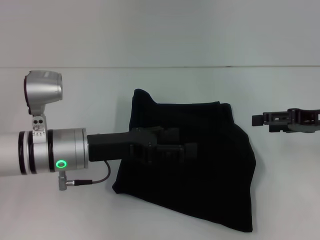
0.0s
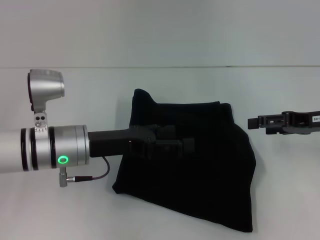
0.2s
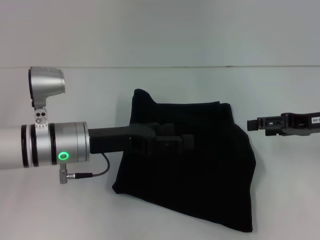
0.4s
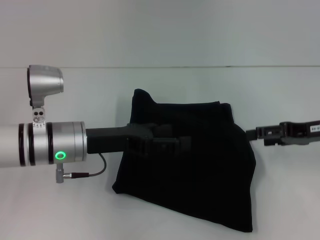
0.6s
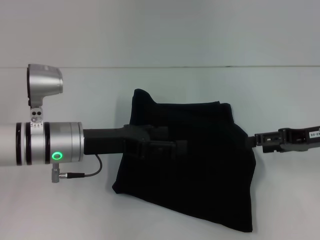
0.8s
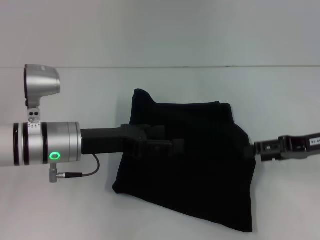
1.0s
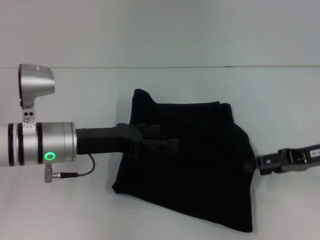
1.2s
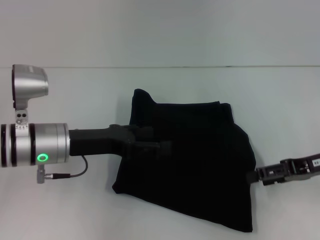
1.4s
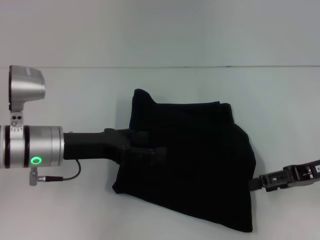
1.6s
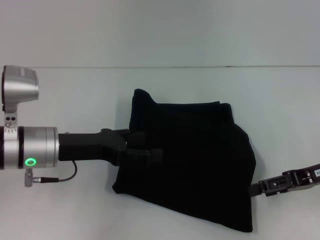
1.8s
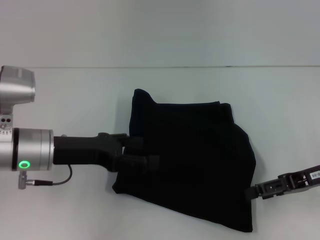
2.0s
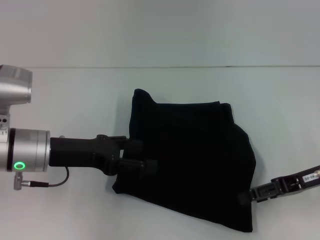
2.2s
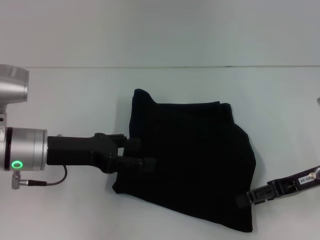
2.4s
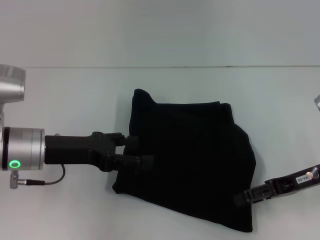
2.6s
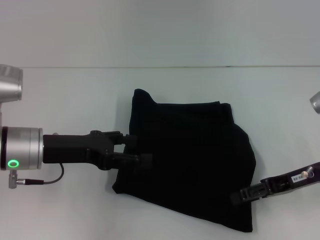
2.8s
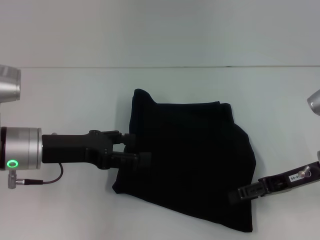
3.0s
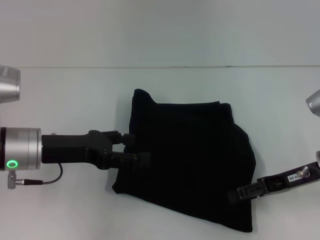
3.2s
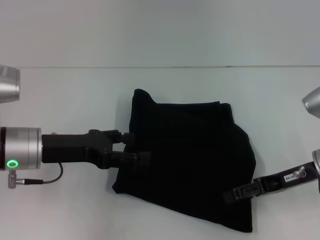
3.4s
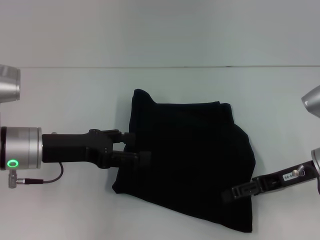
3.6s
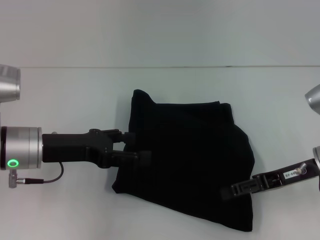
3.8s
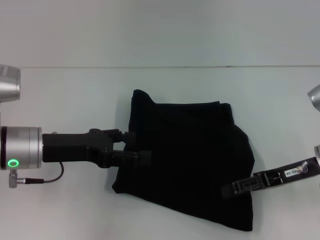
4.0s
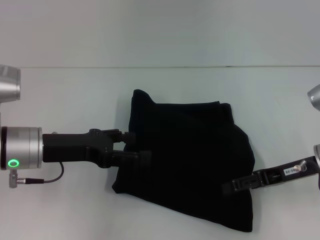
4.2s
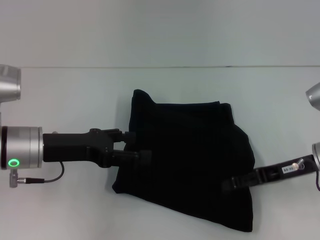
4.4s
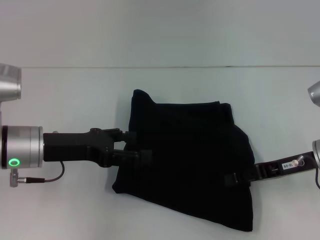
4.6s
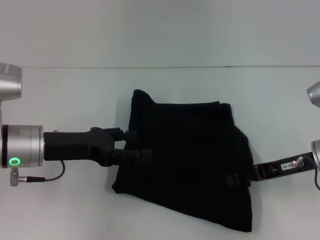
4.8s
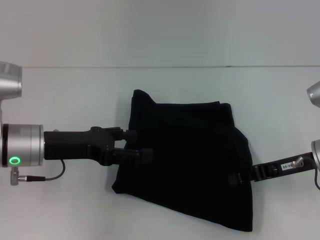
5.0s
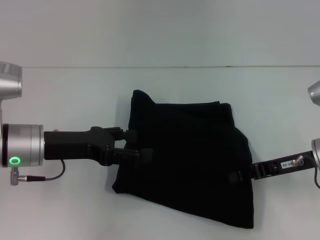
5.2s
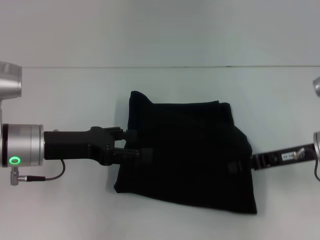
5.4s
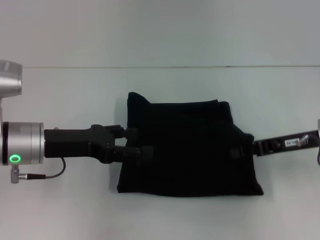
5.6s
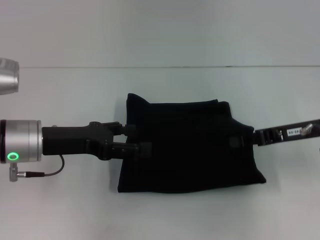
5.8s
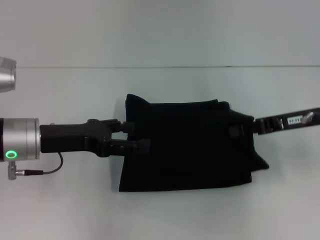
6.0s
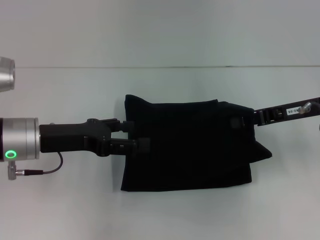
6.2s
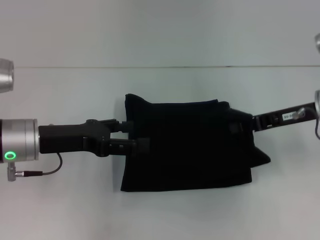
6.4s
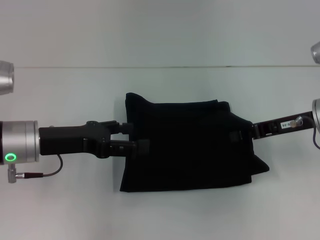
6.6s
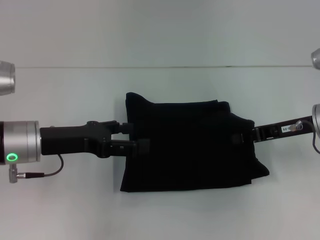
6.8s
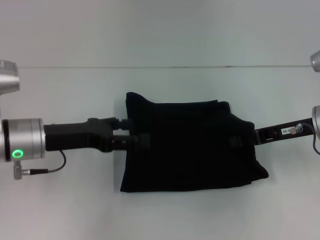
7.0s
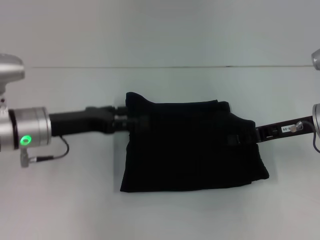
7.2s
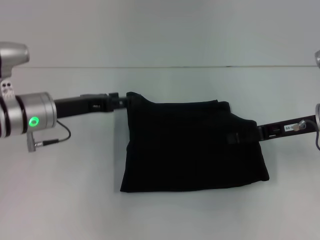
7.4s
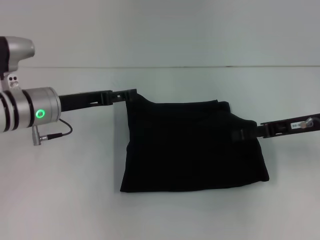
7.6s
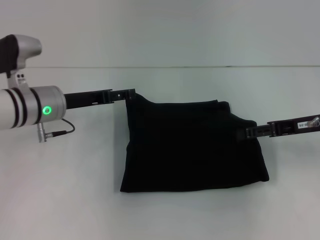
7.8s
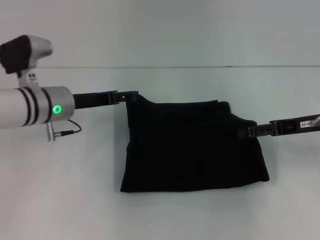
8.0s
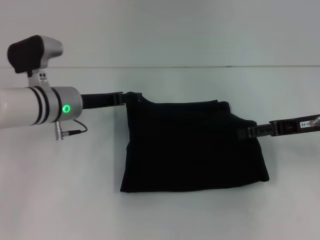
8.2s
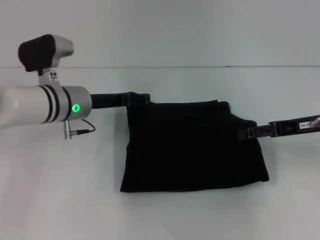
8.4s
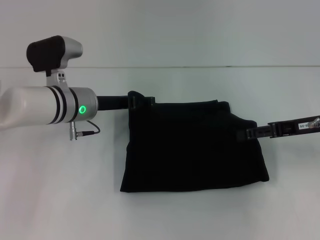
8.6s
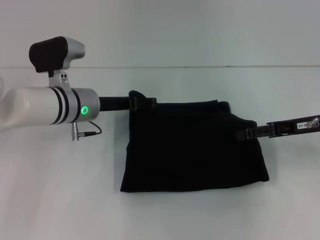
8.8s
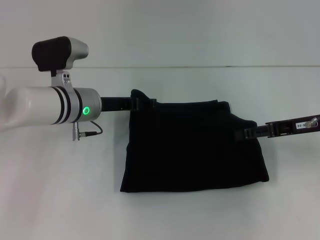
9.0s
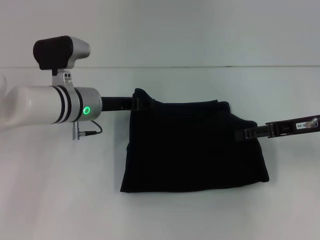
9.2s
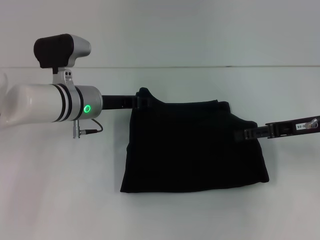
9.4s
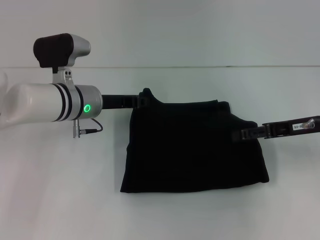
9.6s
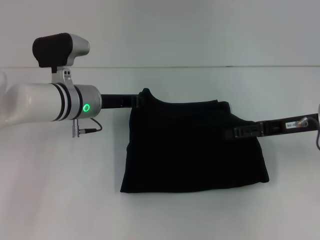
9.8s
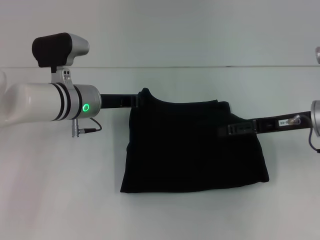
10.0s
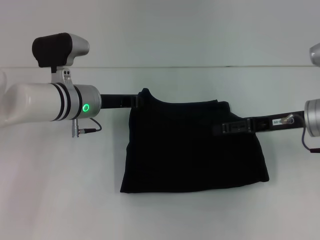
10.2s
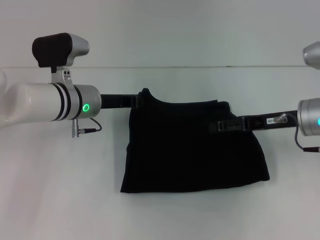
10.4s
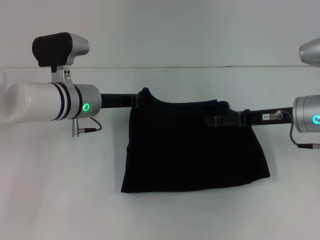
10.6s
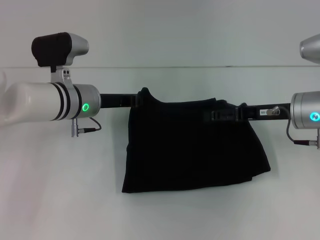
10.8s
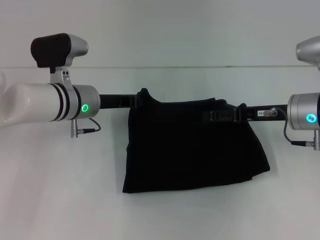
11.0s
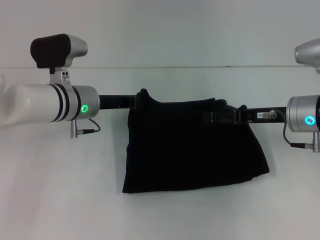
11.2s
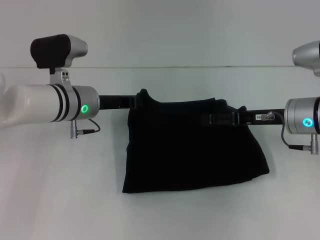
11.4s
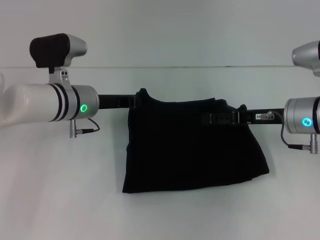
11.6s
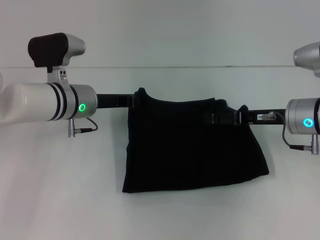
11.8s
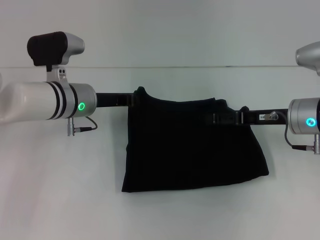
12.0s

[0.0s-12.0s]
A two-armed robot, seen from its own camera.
0.0s to 1.6s: The grippers stay close to where they were, moving slightly.
1.6s to 3.0s: The grippers move only a little.
3.0s to 4.4s: Both grippers stay about where they are.
4.4s to 6.0s: The right gripper moves upward, roughly 5 cm, and closes up.
6.0s to 7.6s: The right gripper opens up. Meanwhile the left gripper moves forward, roughly 5 cm.
7.6s to 9.0s: The left gripper heads to the right, covering about 5 cm, while the right gripper opens.
9.0s to 10.4s: The left gripper closes its fingers.
10.4s to 12.0s: The grippers move only a little.

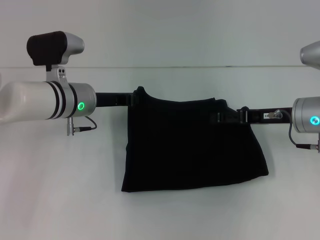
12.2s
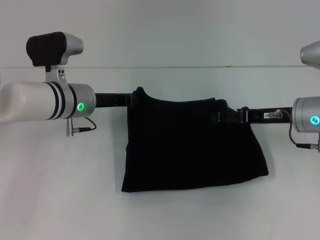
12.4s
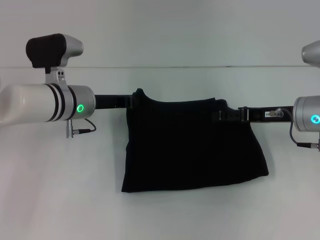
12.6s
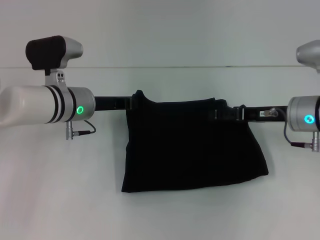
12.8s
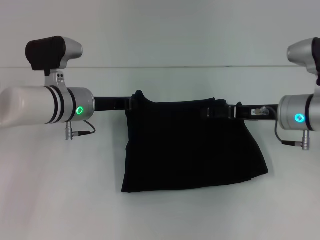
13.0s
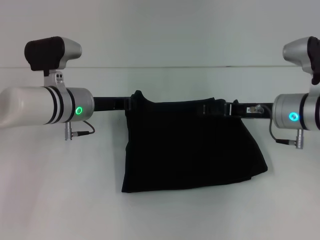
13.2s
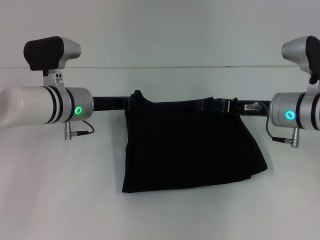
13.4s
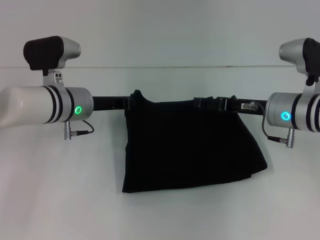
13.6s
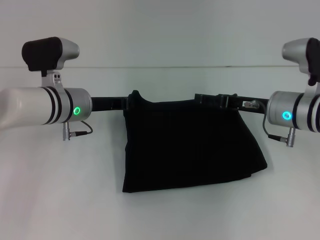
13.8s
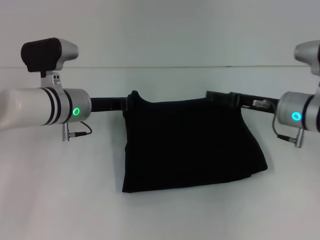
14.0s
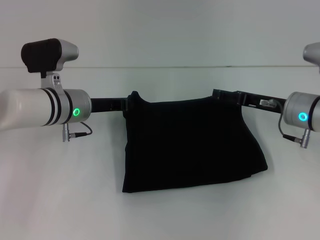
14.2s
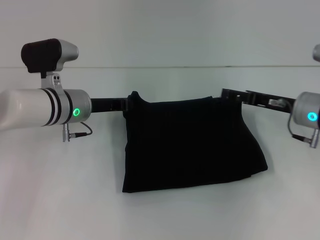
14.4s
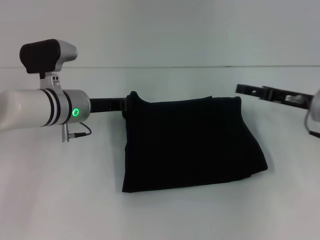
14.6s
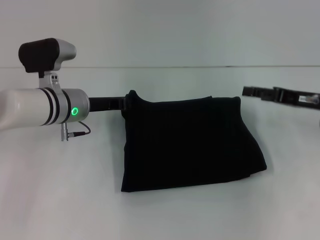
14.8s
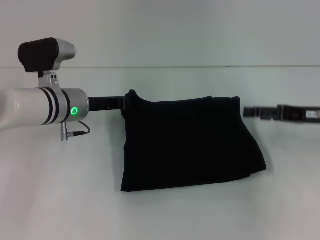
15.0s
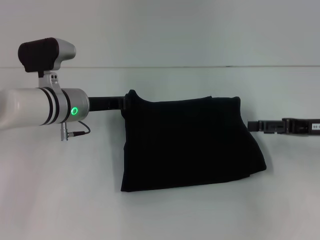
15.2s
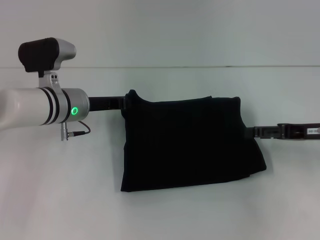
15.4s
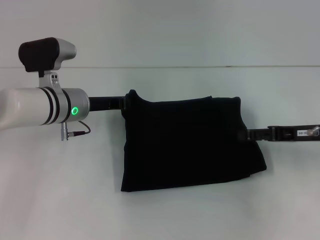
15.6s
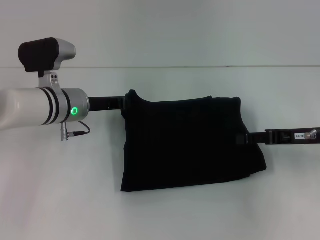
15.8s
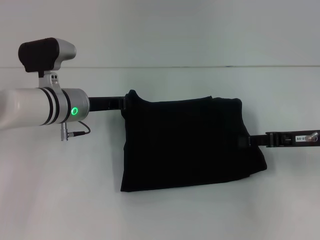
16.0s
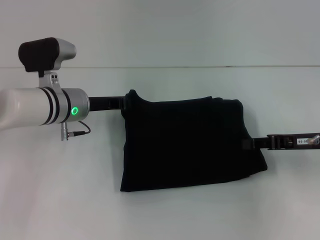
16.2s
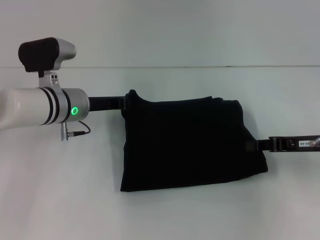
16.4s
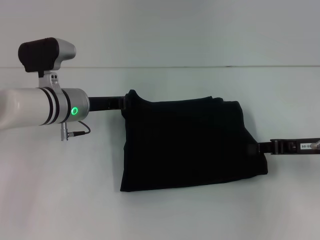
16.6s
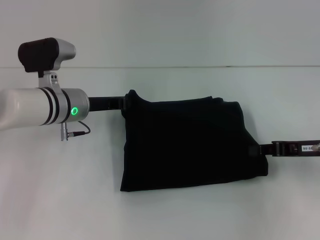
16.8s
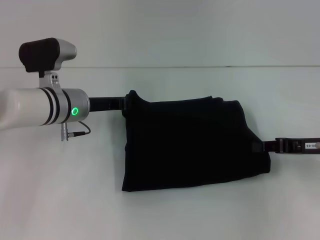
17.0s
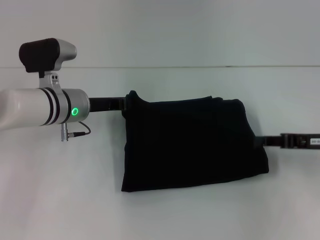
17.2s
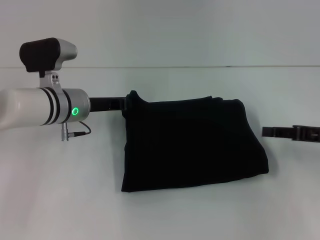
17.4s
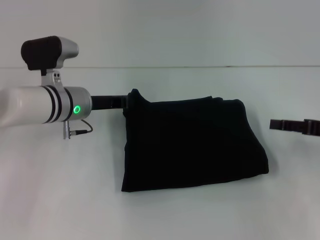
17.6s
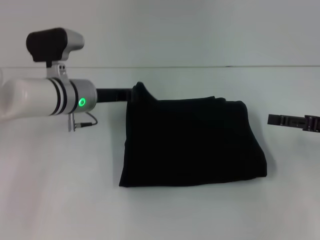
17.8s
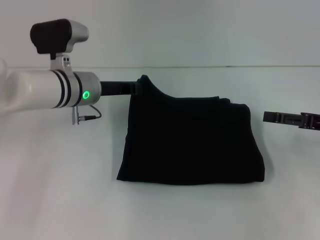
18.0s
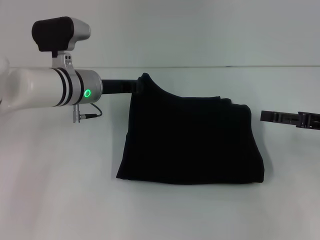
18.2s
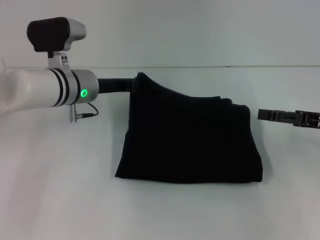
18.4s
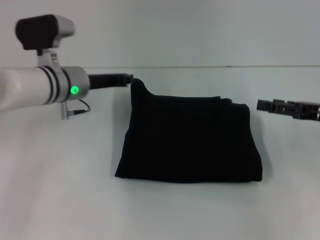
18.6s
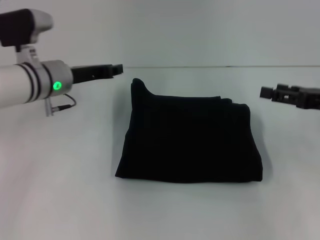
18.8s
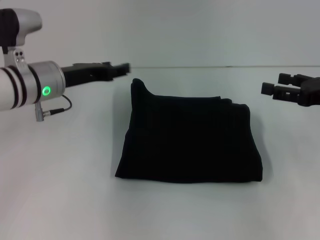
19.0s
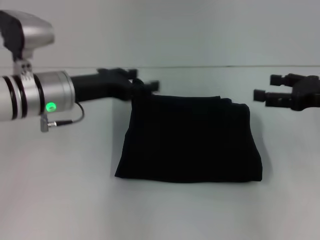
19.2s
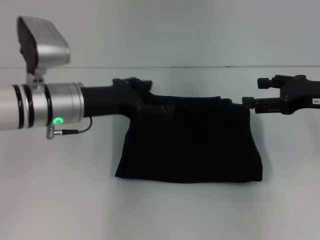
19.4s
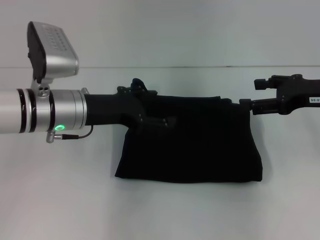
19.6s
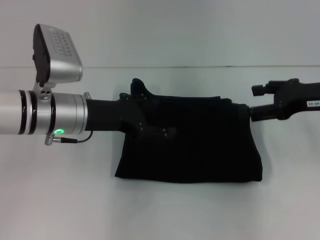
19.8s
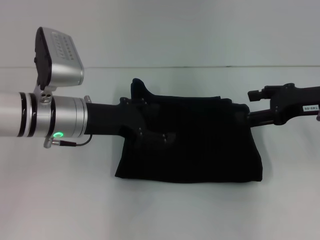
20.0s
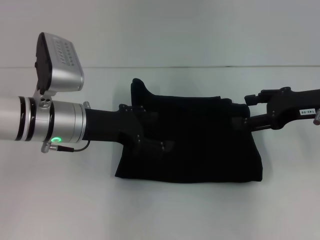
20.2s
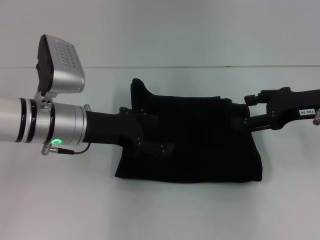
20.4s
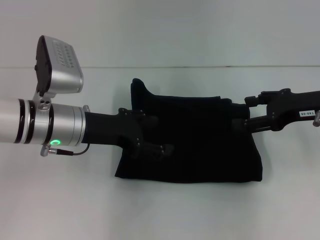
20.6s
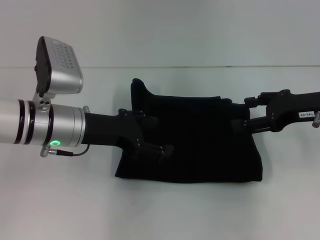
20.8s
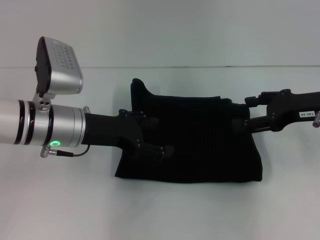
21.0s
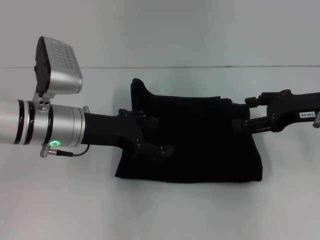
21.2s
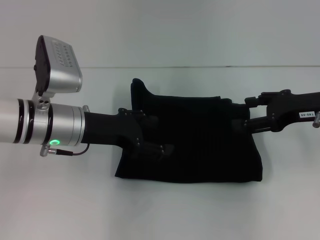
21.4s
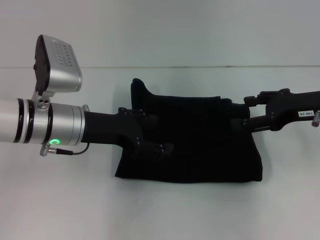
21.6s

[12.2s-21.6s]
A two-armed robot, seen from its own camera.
12.2s to 13.8s: The grippers stay close to where they were, moving slightly.
13.8s to 15.4s: The right gripper moves to the right, some 10 cm.
15.4s to 17.0s: The right gripper closes up.
17.0s to 18.4s: The right gripper opens.
18.4s to 20.0s: The left gripper goes roughly 10 cm backward, and opens up. The right gripper shifts by about 5 cm.
20.0s to 21.6s: Both grippers stay about where they are.

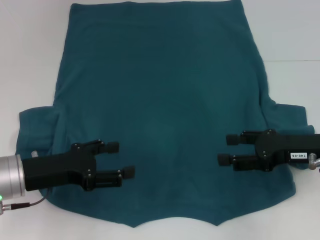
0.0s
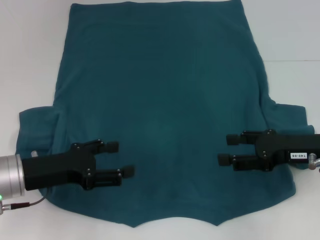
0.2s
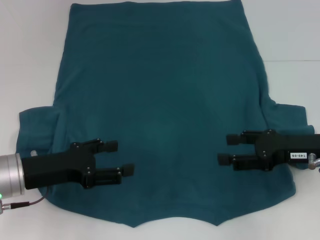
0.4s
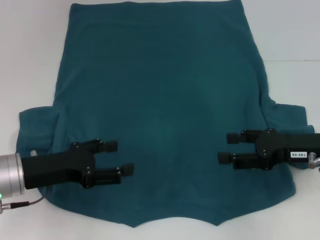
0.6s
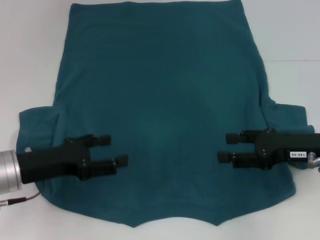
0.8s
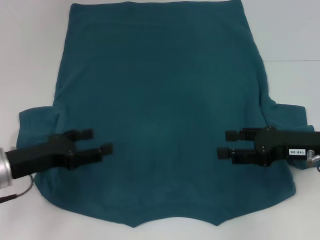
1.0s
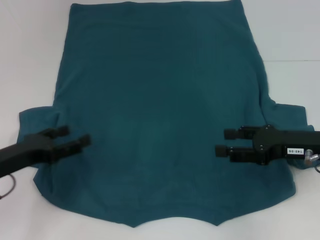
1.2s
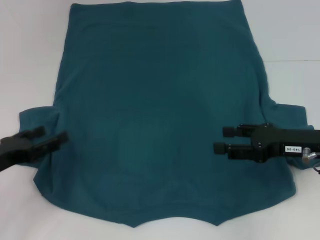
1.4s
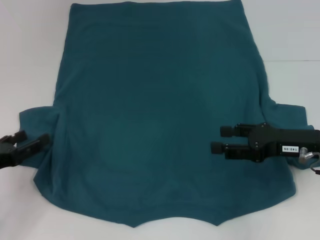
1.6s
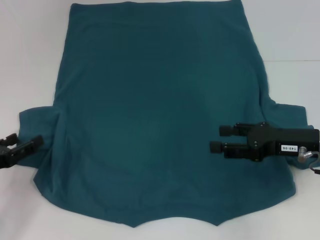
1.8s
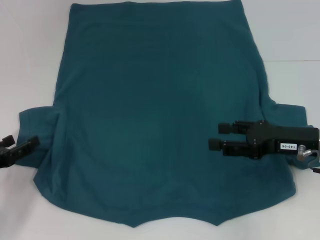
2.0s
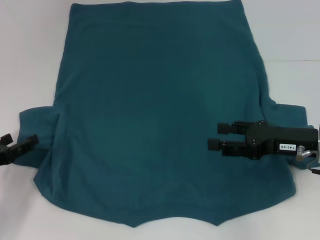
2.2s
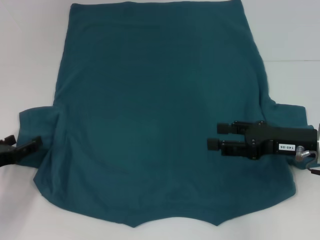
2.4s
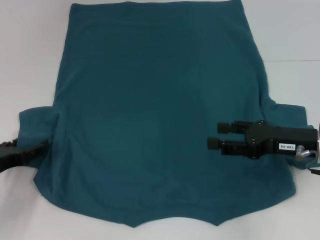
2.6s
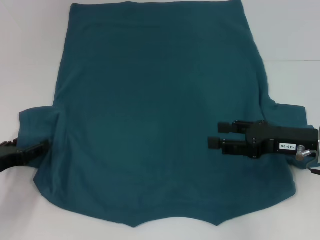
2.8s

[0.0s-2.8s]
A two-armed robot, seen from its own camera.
0.0s to 1.4s: The left gripper heads to the left, covering about 5 cm.
1.4s to 2.8s: The grippers move only a little.
